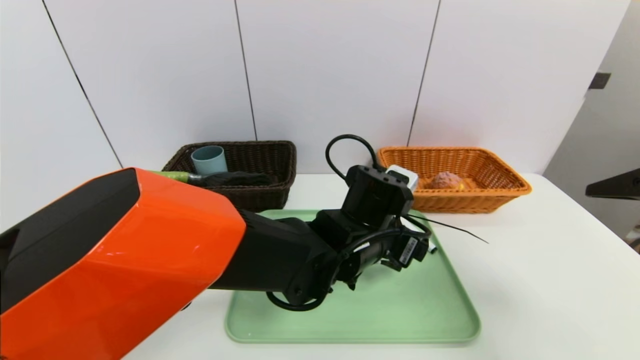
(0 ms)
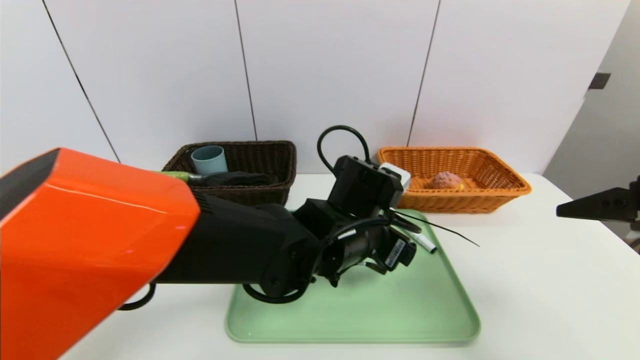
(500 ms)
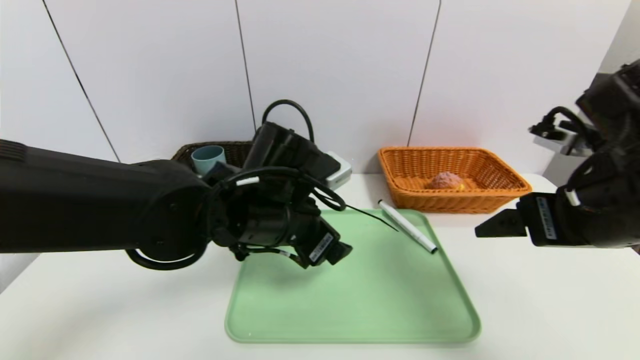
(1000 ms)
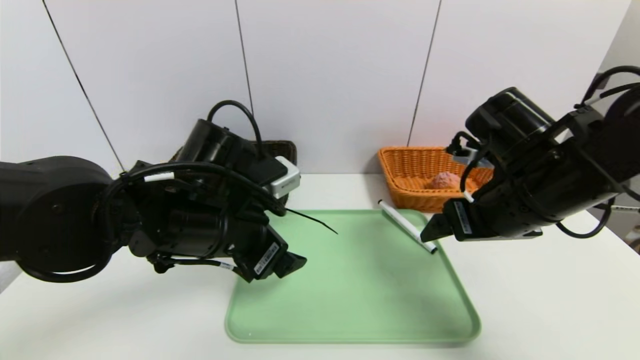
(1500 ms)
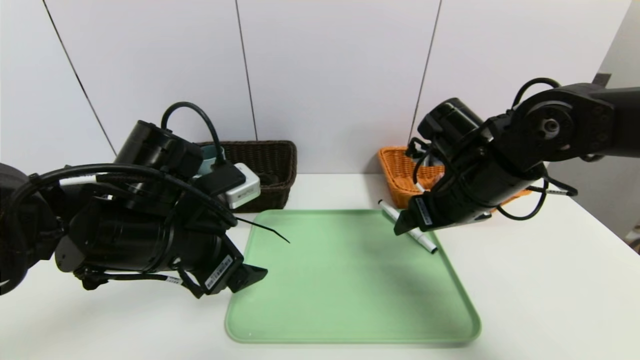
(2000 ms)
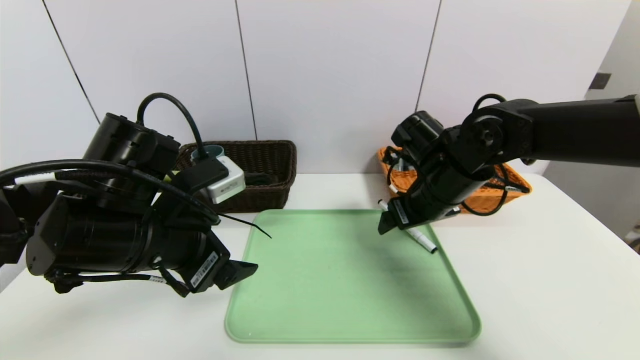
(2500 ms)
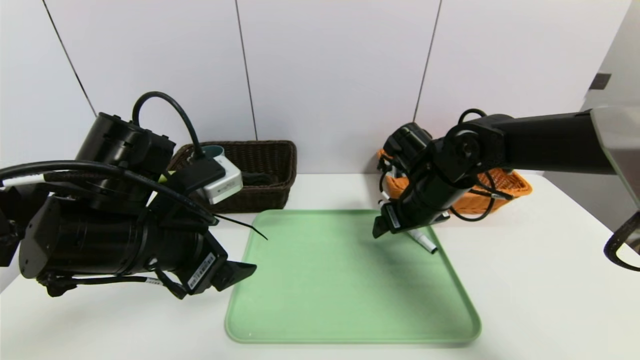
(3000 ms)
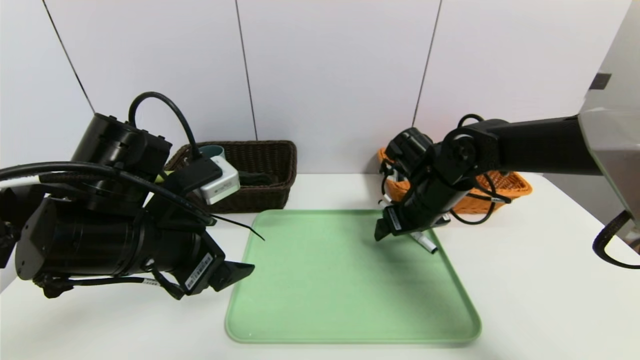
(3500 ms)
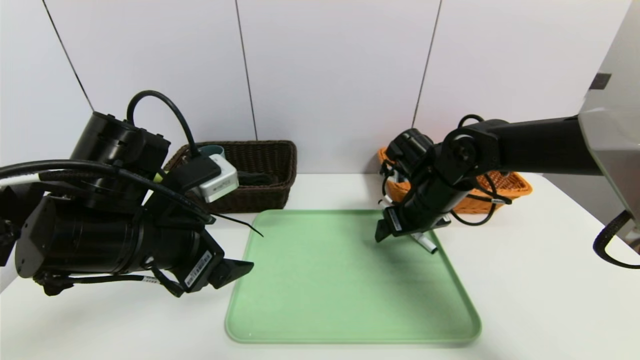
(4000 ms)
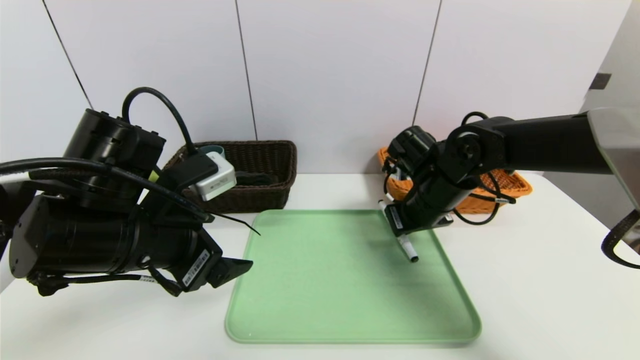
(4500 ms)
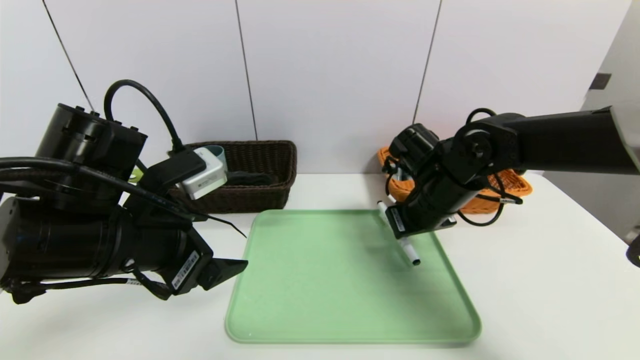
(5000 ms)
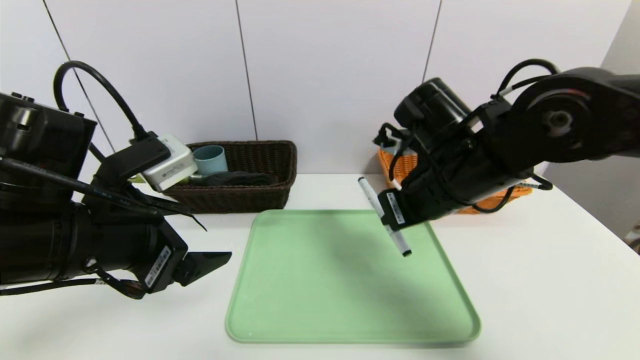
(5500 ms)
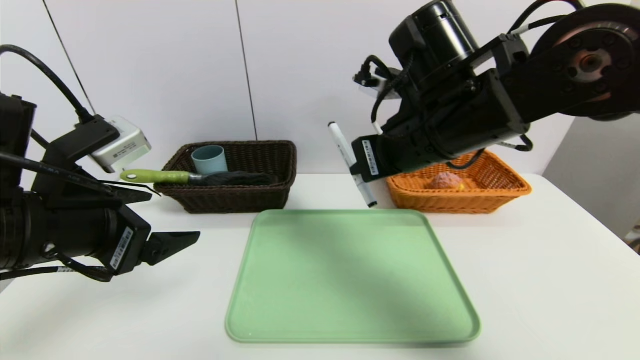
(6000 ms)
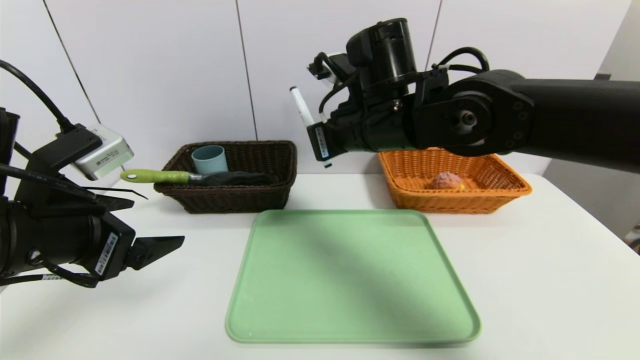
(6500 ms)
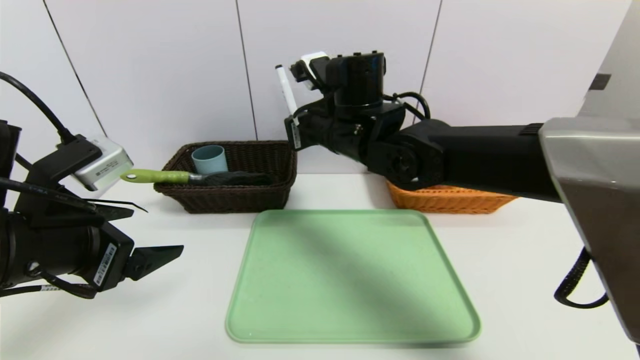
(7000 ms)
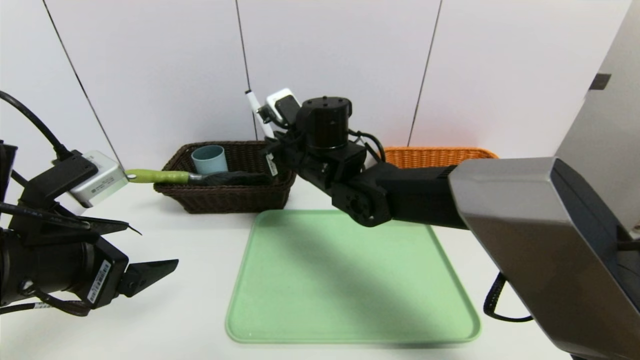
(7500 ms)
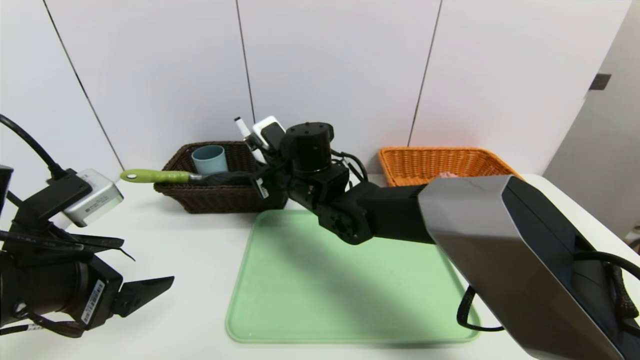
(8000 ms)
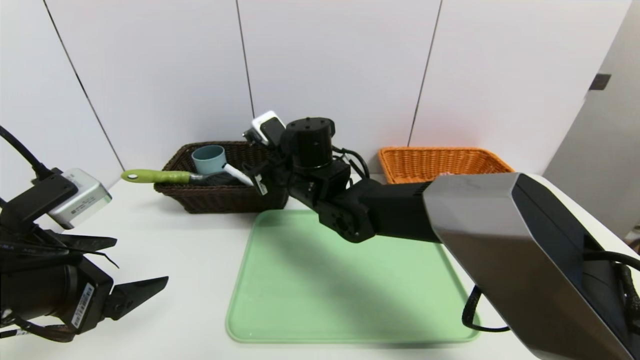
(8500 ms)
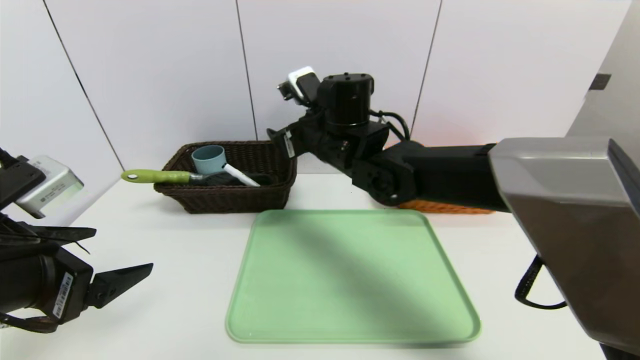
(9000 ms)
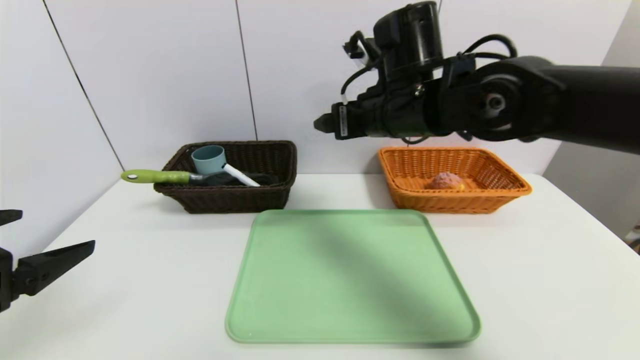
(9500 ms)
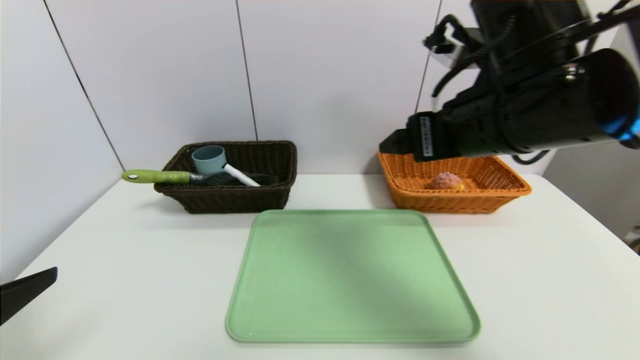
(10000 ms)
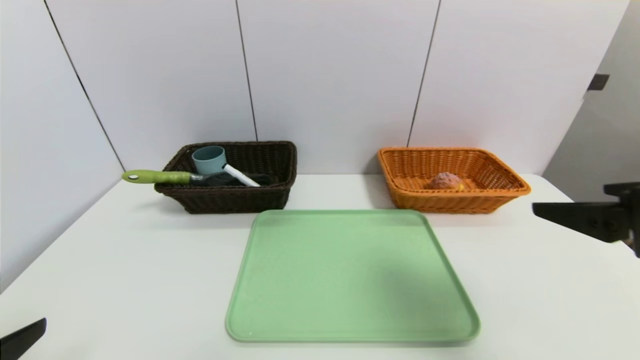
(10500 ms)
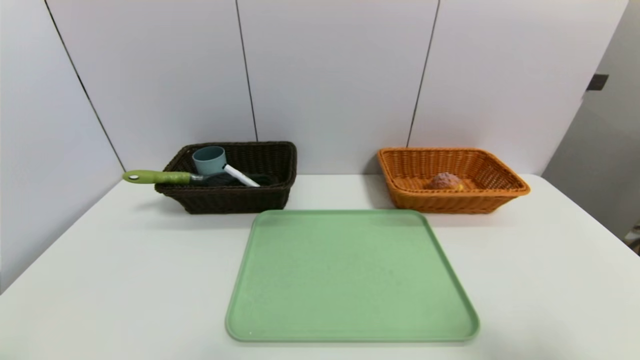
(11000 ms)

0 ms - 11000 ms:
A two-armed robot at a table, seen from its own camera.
Task of the whole recording: place the food in the right basket with the right gripper, and place the non food items in the left basket with the left gripper.
Step, 0 ms - 8000 ms: Grasp the black marker and put it in the left basket.
0 ms - 2000 ms: The right gripper moves forward, to the left and downward, about 25 cm; the left gripper moves to the left, about 20 cm.
2000 ms - 3500 ms: The right gripper goes roughly 10 cm forward and downward.
3500 ms - 5500 ms: The right gripper is displaced backward and upward by approximately 10 cm, and closes its fingers.
5500 ms - 7500 ms: The left gripper shifts roughly 5 cm to the left; the right gripper is displaced to the left and forward by roughly 20 cm.
7500 ms - 9000 ms: The right gripper changes place by roughly 5 cm, and opens.
9000 ms - 11000 ms: The left gripper moves backward, approximately 15 cm; the right gripper heads backward and to the right, covering about 50 cm.

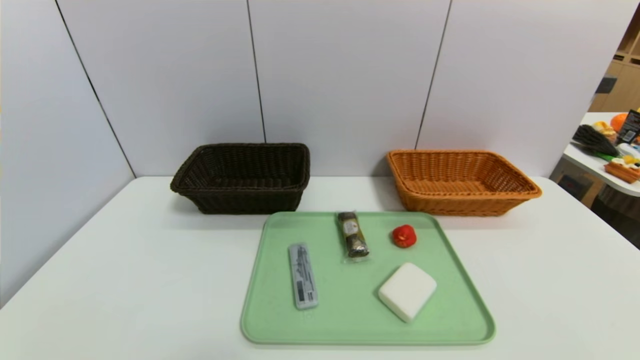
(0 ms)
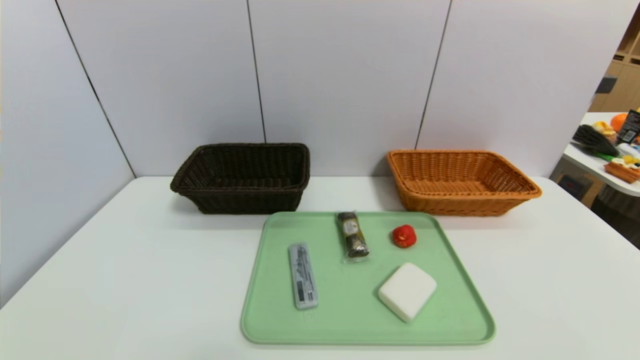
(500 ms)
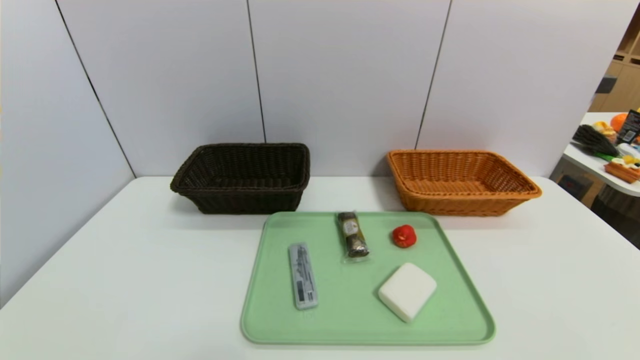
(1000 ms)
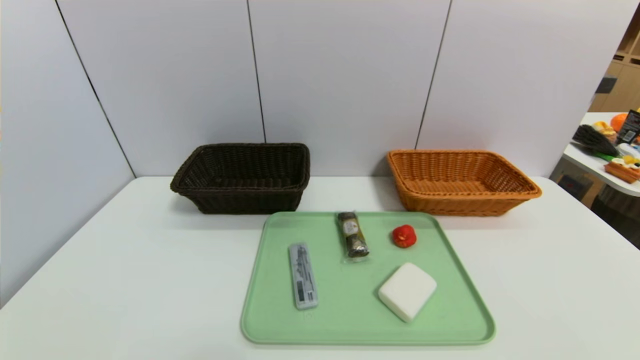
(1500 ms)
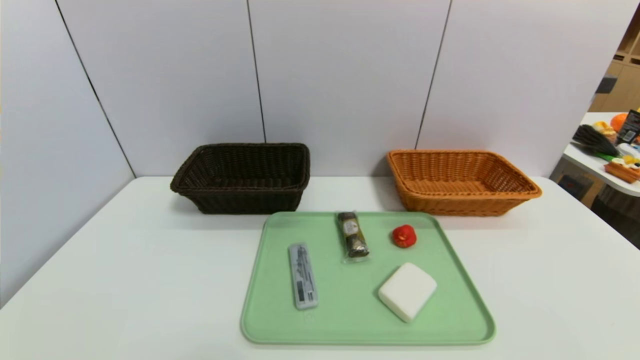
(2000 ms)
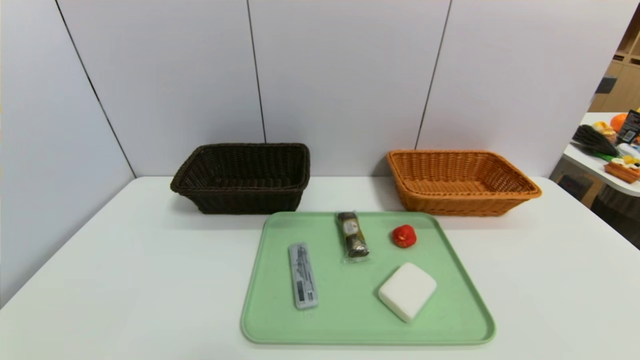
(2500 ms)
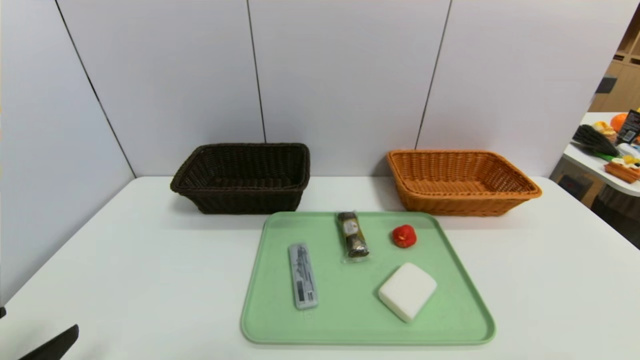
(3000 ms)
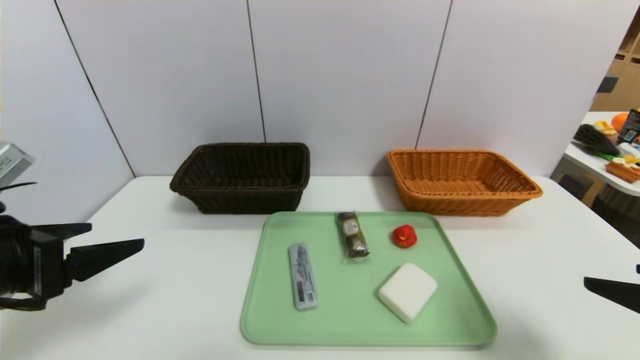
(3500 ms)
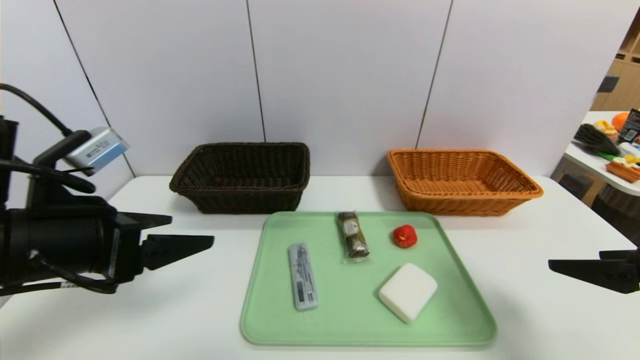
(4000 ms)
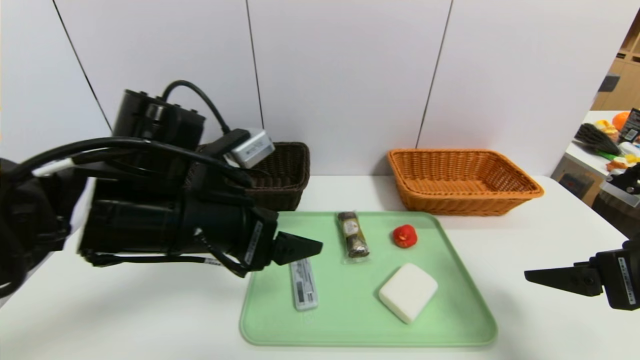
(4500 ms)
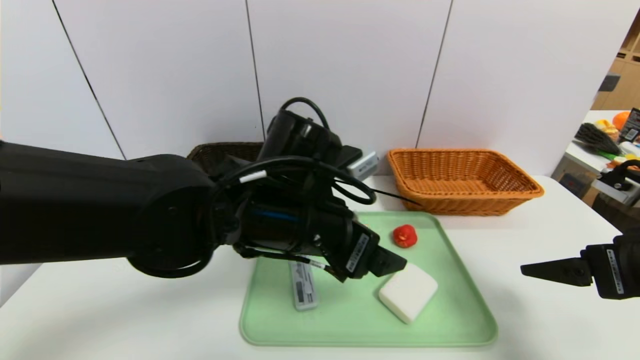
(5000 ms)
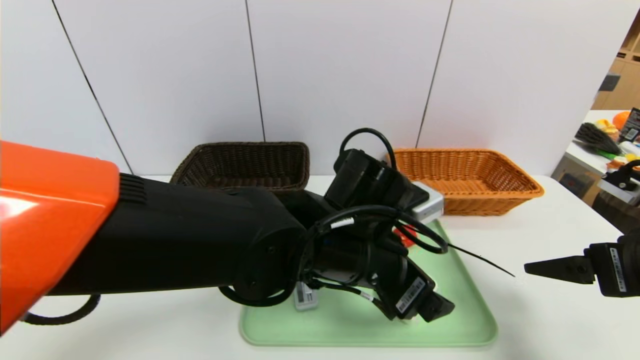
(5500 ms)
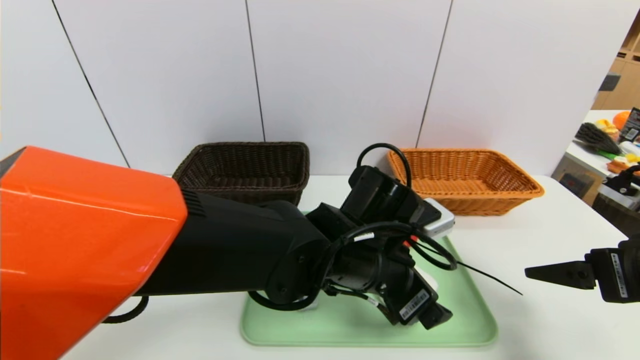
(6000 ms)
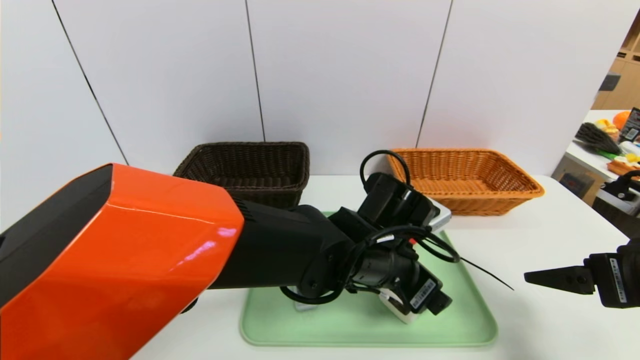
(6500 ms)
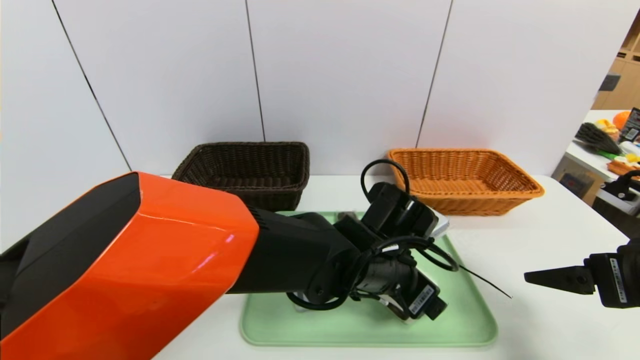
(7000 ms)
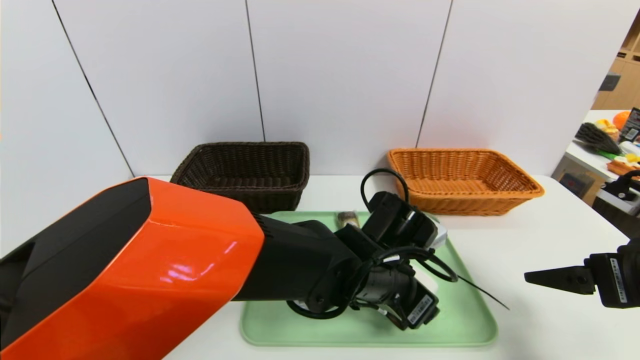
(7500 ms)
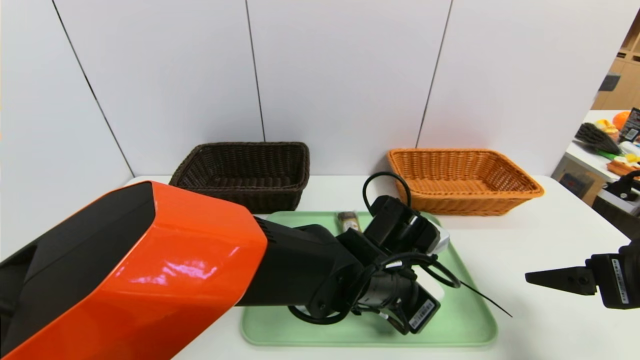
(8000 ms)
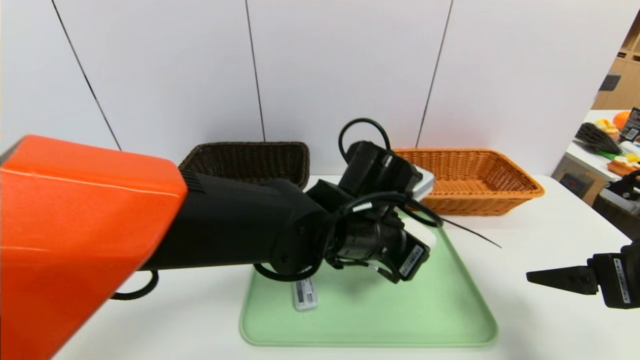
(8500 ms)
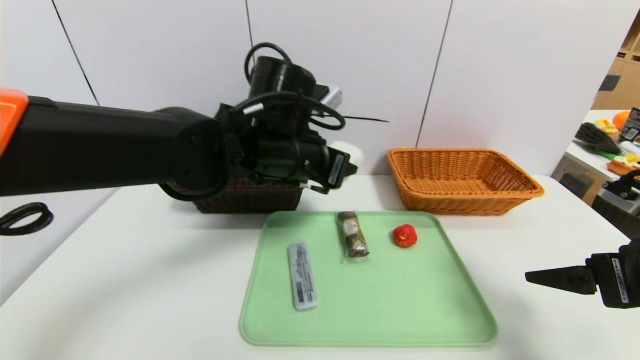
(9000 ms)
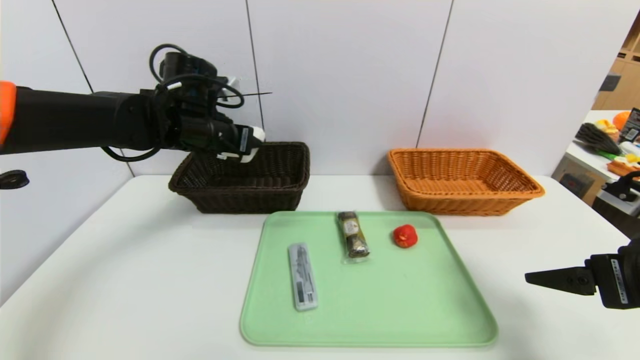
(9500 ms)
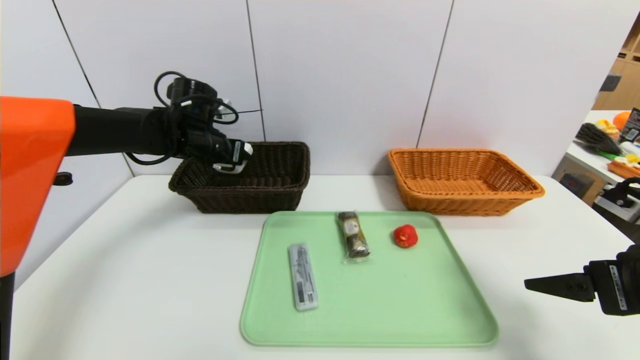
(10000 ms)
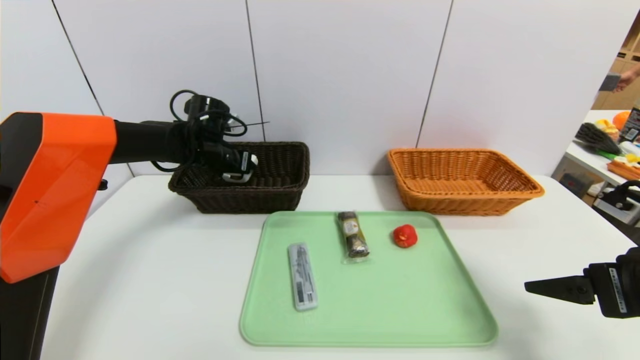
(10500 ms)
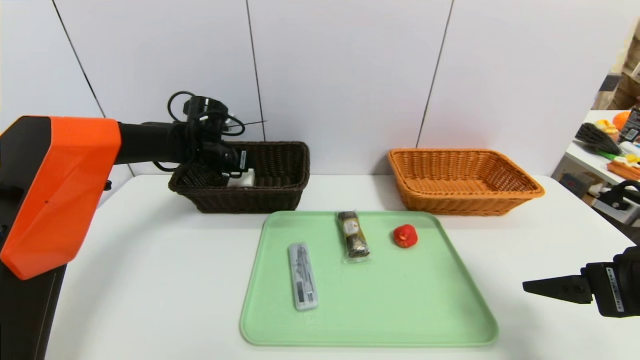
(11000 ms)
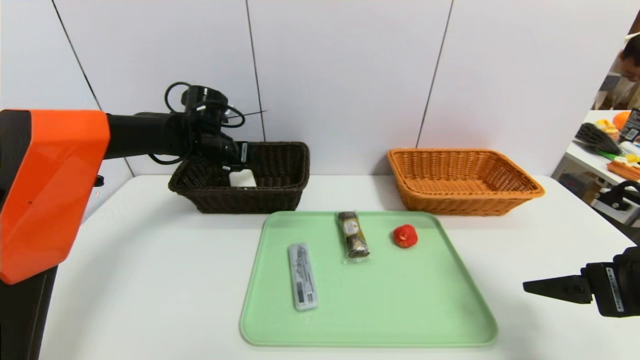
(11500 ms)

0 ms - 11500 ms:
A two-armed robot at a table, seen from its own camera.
Task of the whole recording: place the food in the right basket with the right gripper, and place the non food items in the left basket with the left gripper.
0 ms - 2000 ms: The two grippers keep their place.
2000 ms - 4000 ms: The two grippers go about 25 cm forward and upward.
4000 ms - 6000 ms: The left gripper travels to the right by approximately 30 cm.
7500 ms - 9500 ms: The left gripper travels to the left, forward and upward by some 30 cm.
9500 ms - 11500 ms: The left gripper shifts roughly 5 cm forward.
